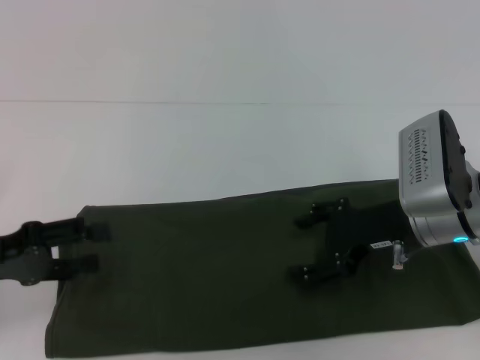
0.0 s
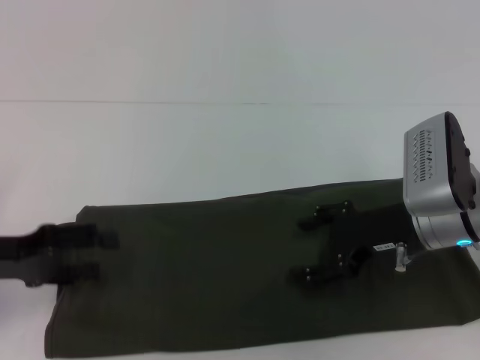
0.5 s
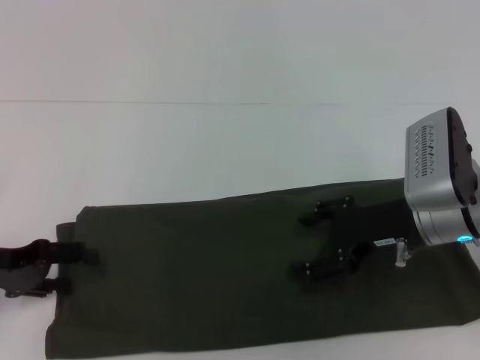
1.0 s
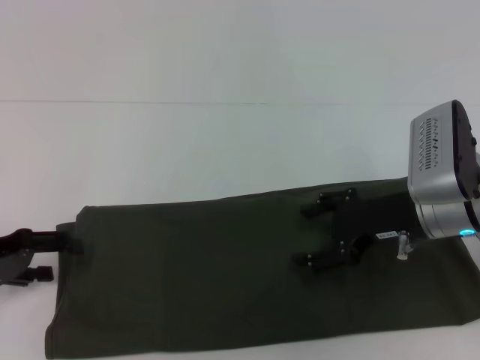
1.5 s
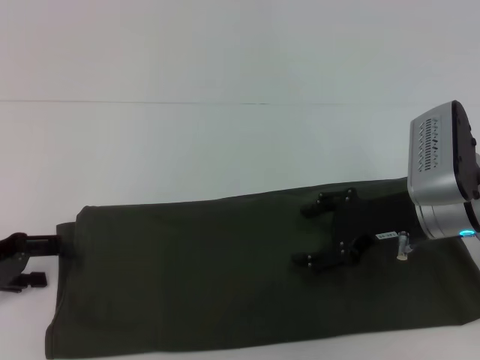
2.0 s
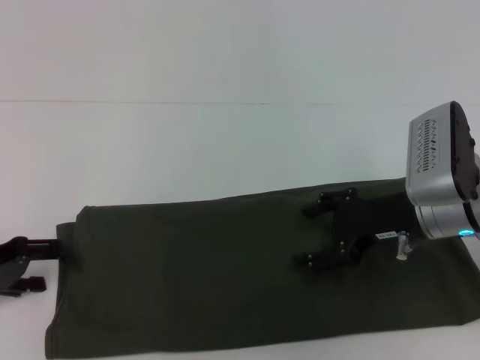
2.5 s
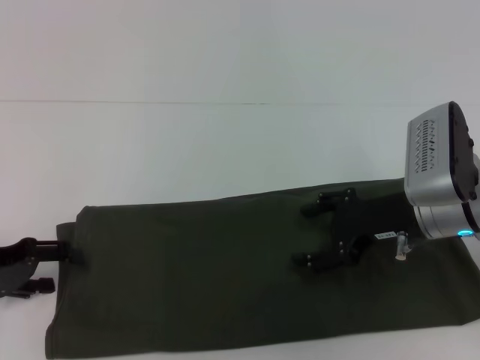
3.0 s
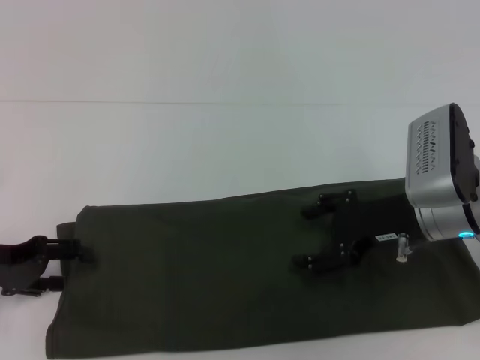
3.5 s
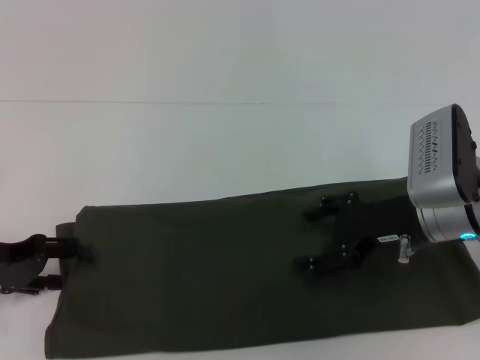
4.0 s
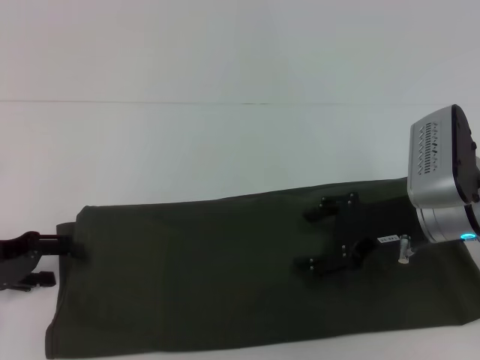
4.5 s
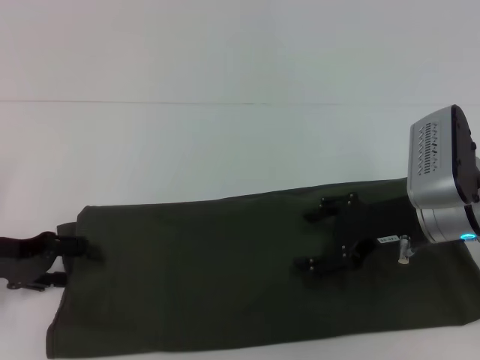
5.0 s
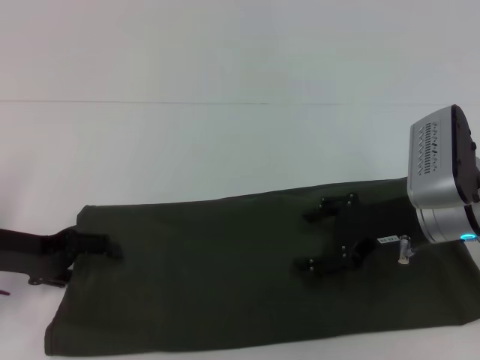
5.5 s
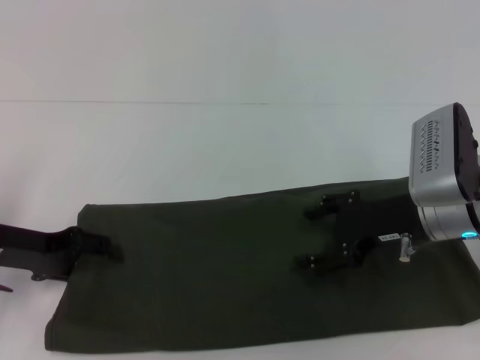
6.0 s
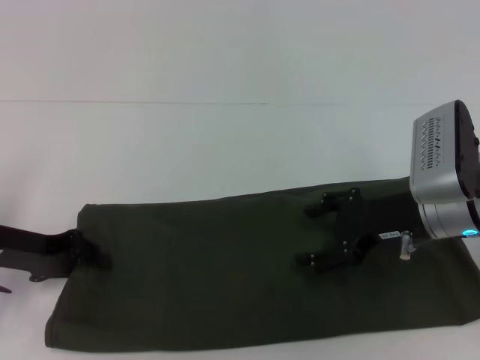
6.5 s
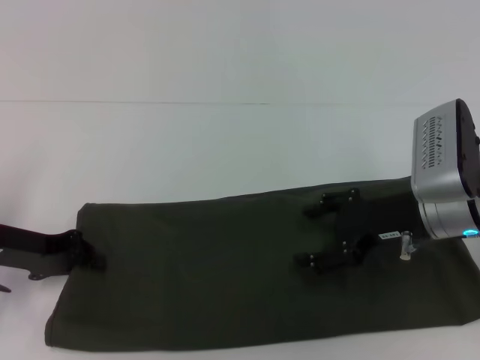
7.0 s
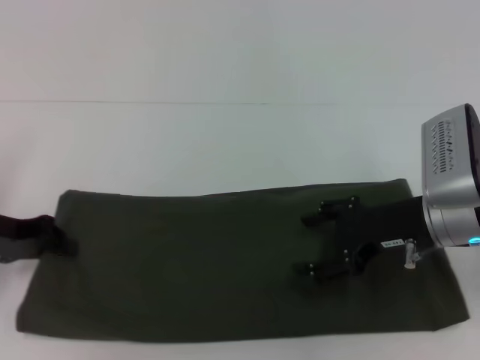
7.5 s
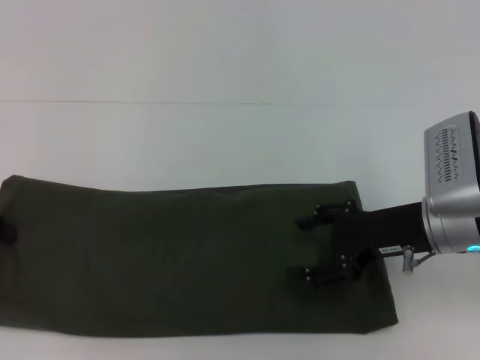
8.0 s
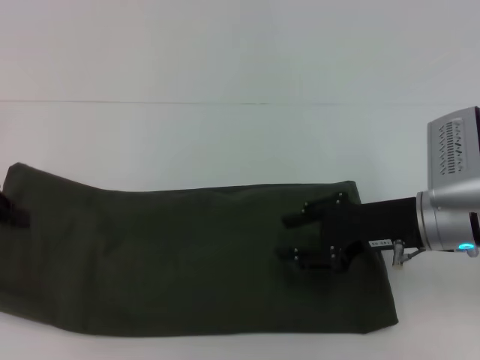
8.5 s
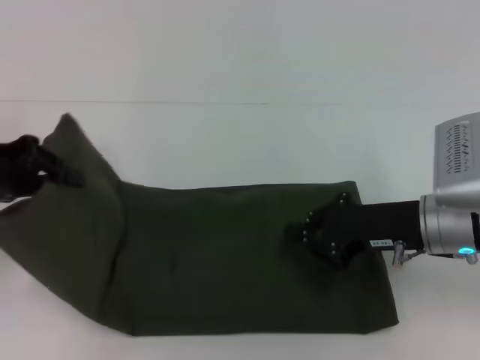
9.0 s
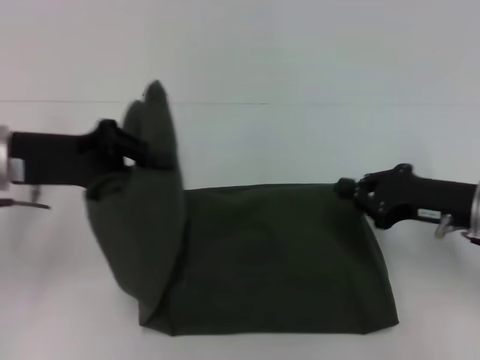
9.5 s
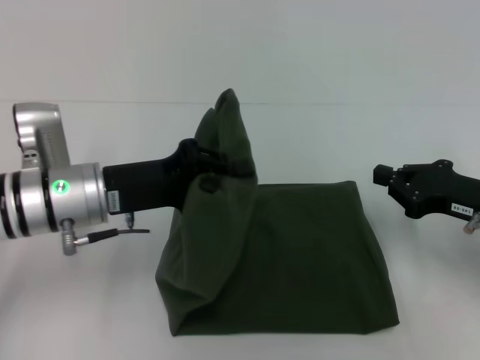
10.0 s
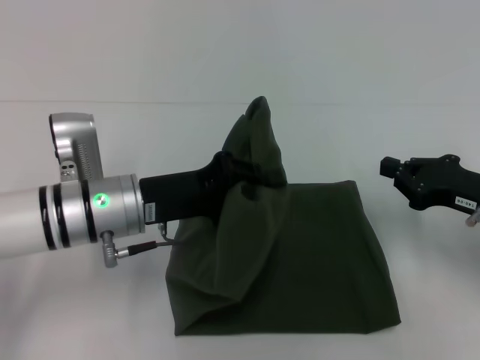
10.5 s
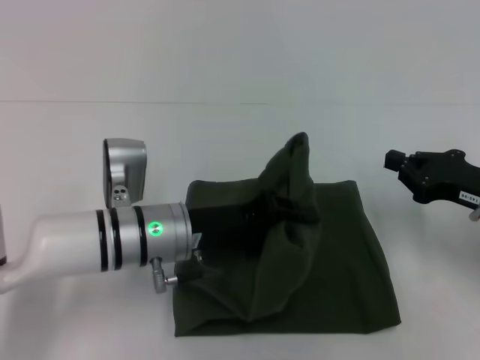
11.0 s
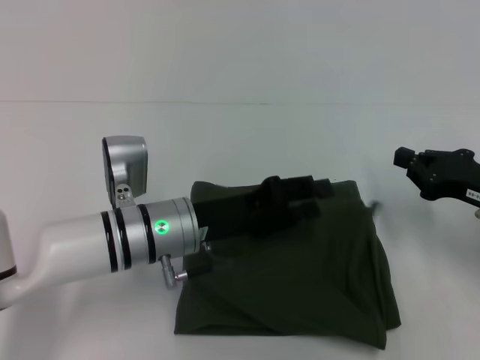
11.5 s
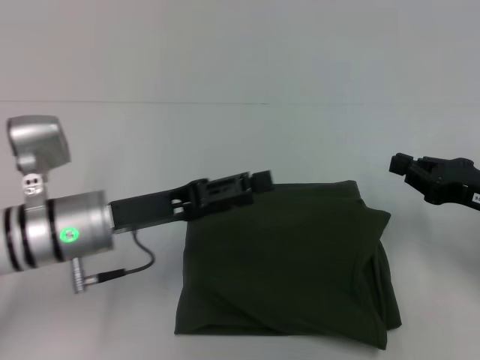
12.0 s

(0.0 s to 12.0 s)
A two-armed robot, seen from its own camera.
Step, 0.0 s - 11.0 s: Fold the clothes with your left hand.
2.0 s - 6.0 s: There are only small adjustments of the grippers.
6.0 s - 8.0 s: The left gripper shifts roughly 5 cm to the left, and closes.
8.0 s - 10.0 s: The left gripper goes some 20 cm to the right. The right gripper heads to the right, covering some 10 cm, and closes.
10.0 s - 12.0 s: The left gripper travels to the right and back again, approximately 10 cm each way, and opens up.

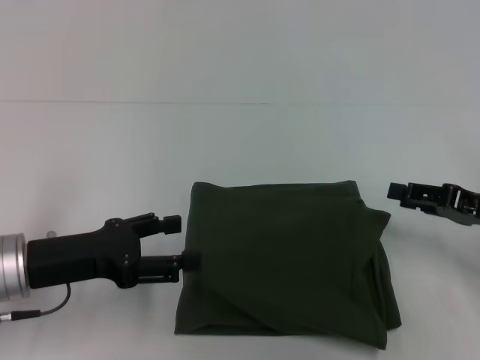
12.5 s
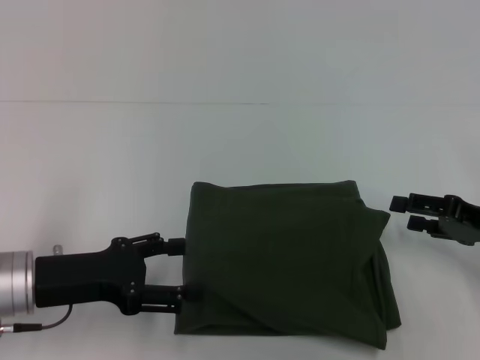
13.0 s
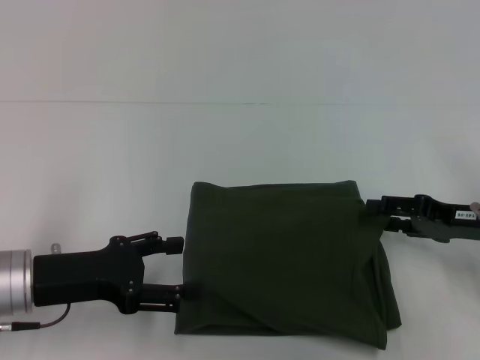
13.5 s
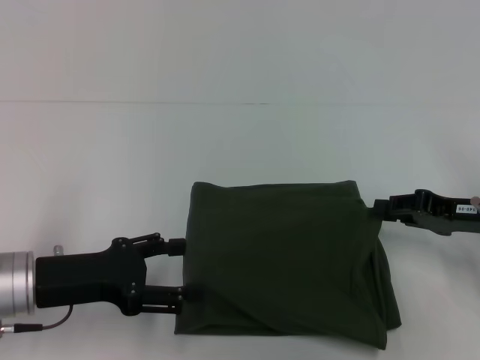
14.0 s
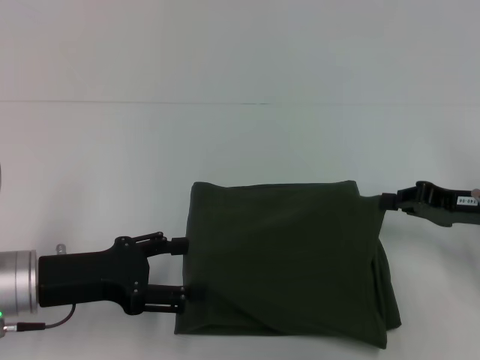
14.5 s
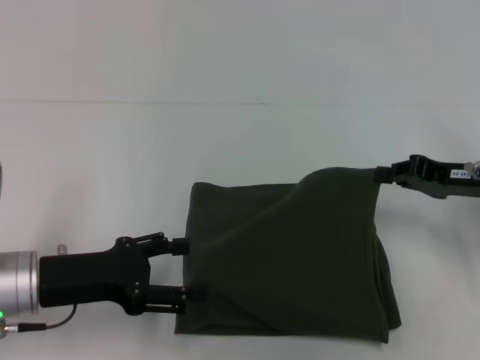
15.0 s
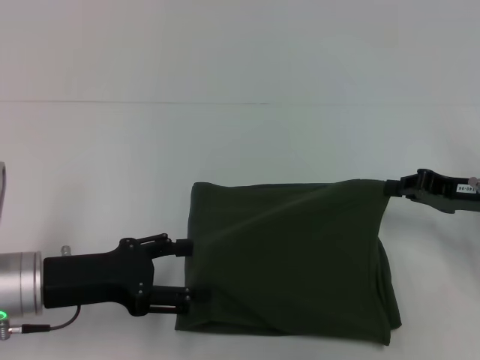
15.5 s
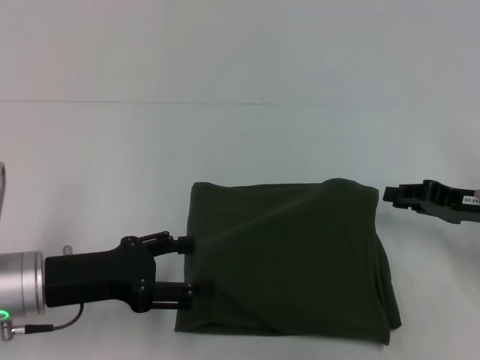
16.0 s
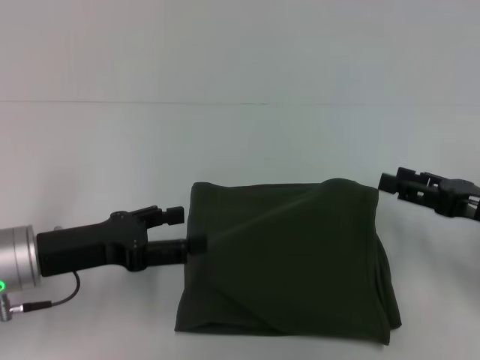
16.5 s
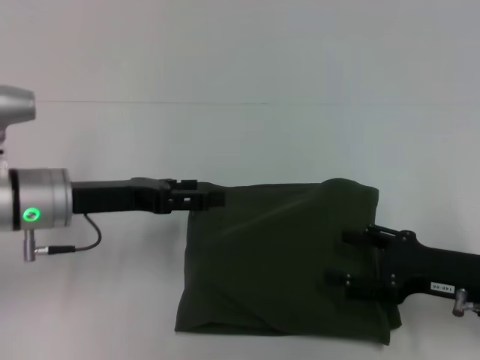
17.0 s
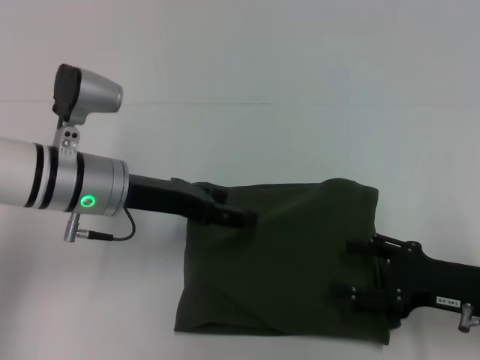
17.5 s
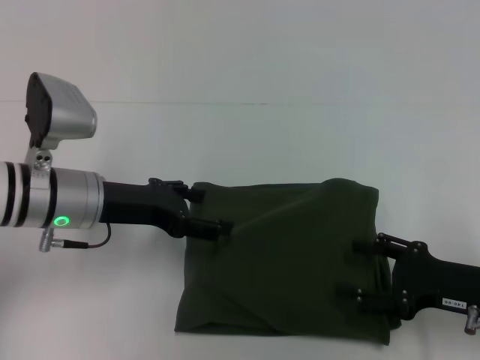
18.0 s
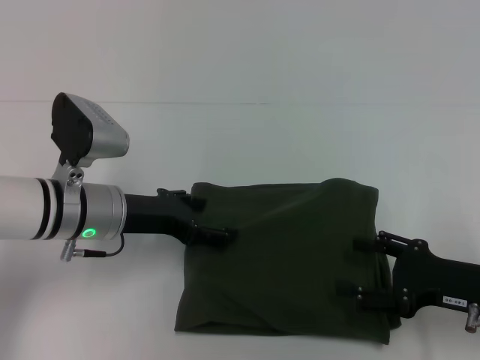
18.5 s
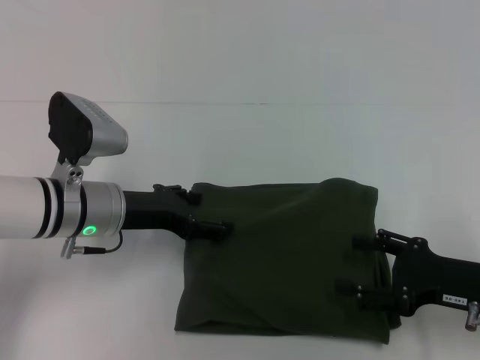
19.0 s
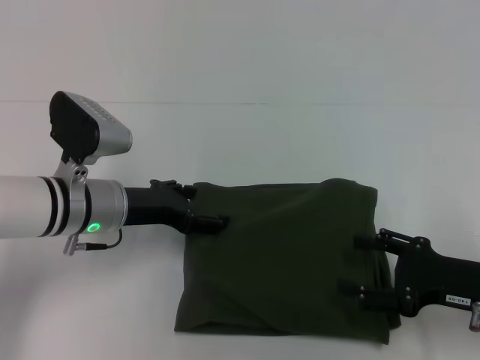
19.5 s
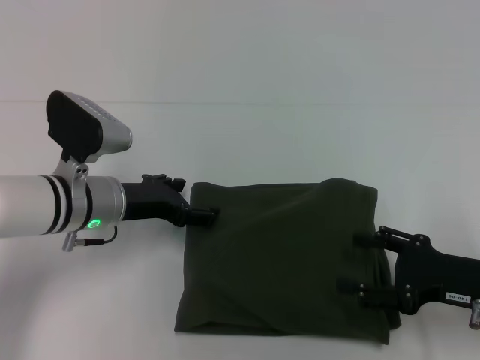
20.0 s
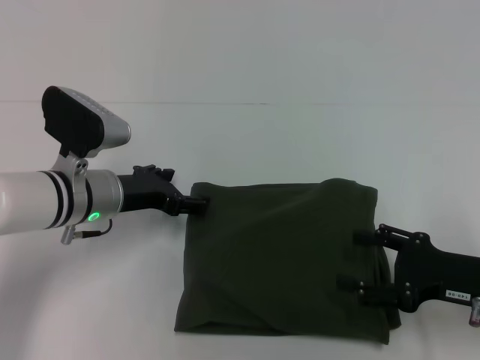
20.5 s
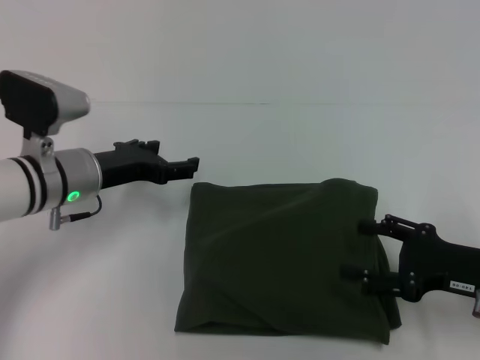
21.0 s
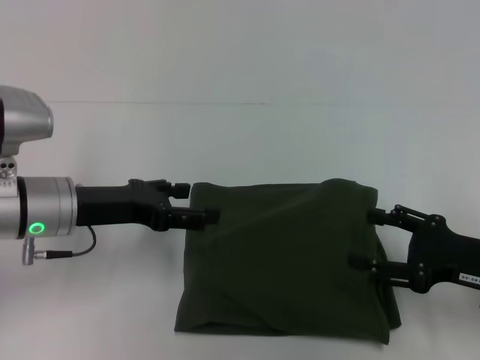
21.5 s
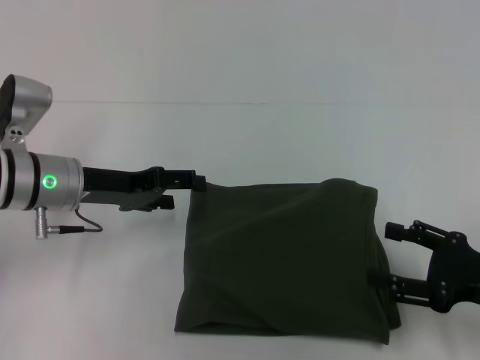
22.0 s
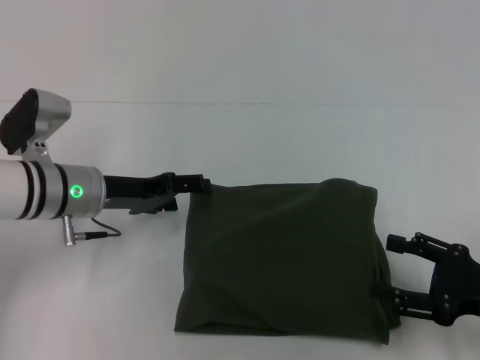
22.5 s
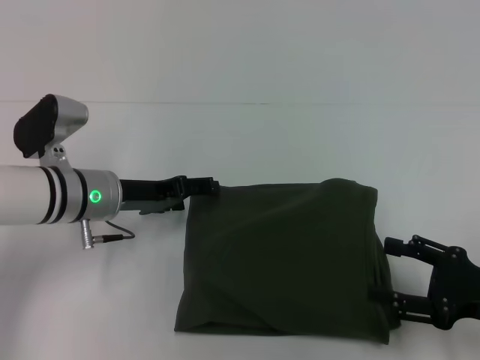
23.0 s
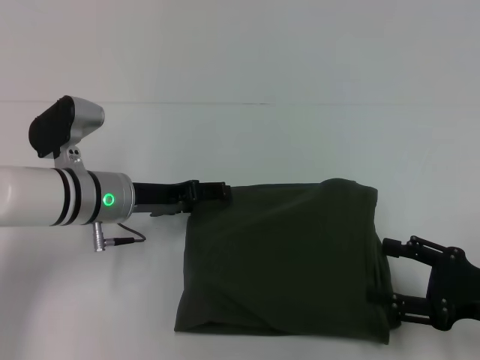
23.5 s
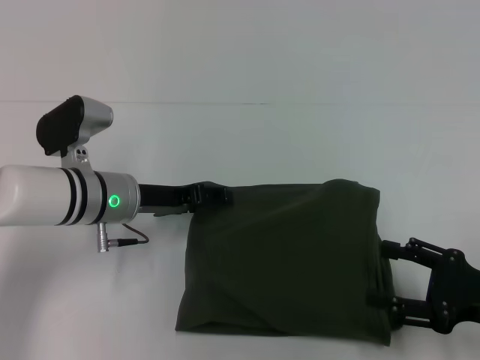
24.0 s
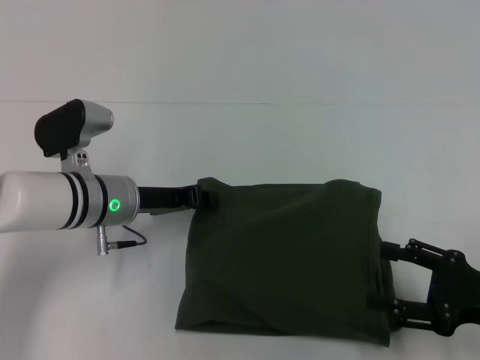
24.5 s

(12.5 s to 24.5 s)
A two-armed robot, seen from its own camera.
12.5 s - 14.5 s: The right gripper closes.
14.5 s - 16.5 s: The right gripper opens.
16.5 s - 18.5 s: The left gripper heads forward and to the right, covering roughly 10 cm, while the right gripper shifts by some 5 cm.
18.5 s - 20.5 s: The grippers stay close to where they were, moving slightly.
22.5 s - 24.5 s: The left gripper closes its fingers.

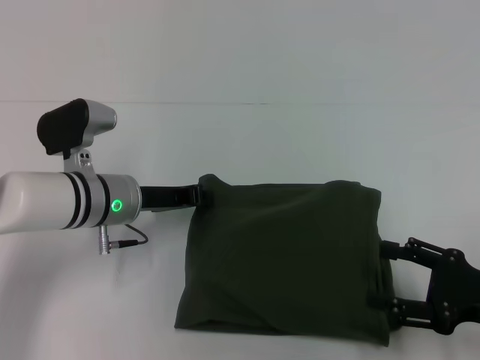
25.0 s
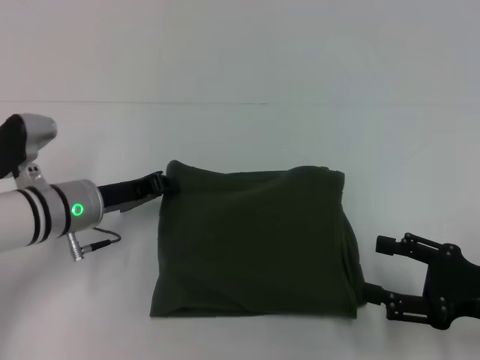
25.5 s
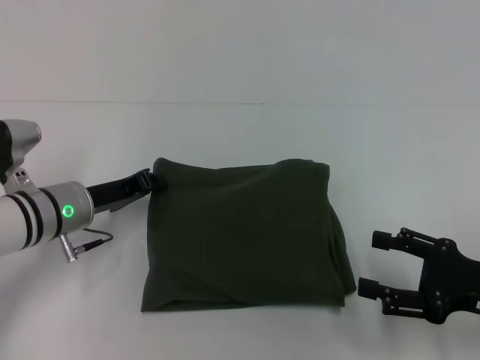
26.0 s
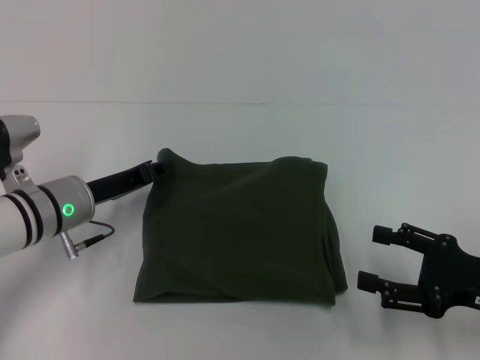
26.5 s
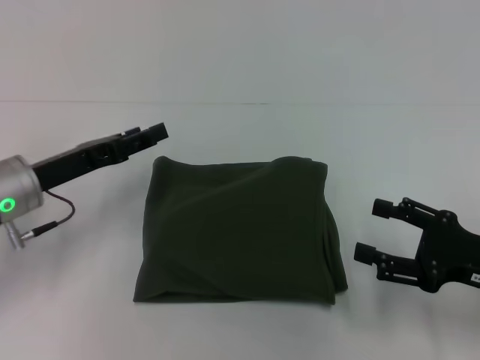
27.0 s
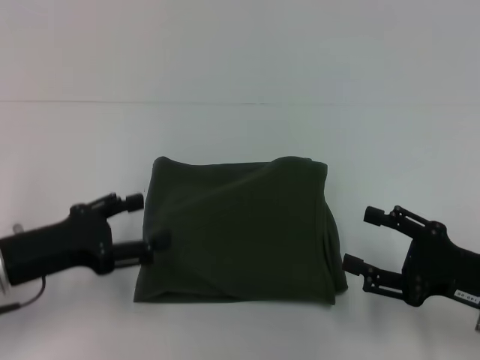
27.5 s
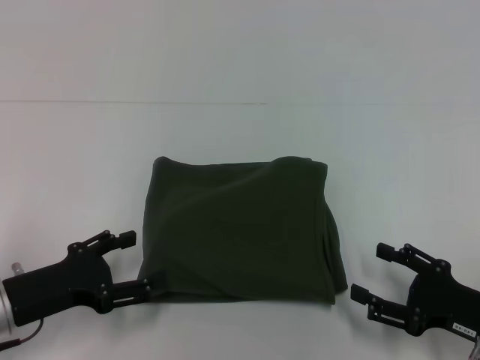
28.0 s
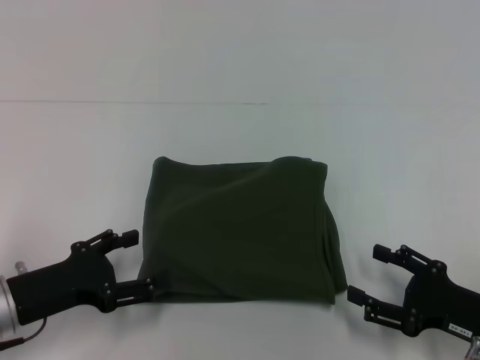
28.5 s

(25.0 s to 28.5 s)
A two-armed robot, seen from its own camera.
25.0 s - 27.0 s: The left gripper shifts about 10 cm to the left, and opens its fingers.
27.0 s - 28.5 s: The left gripper goes approximately 10 cm backward, and opens; the right gripper shifts roughly 5 cm downward.
